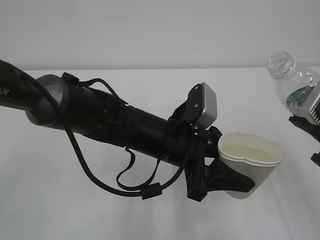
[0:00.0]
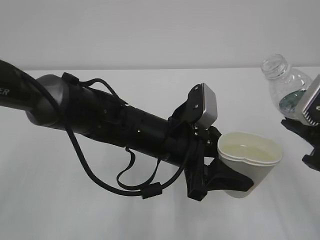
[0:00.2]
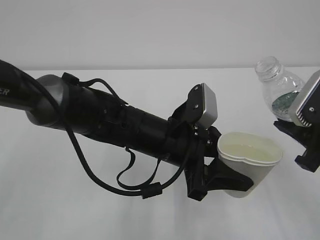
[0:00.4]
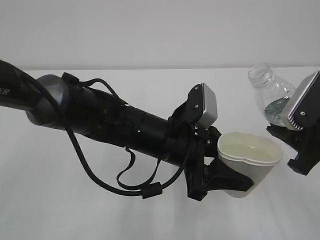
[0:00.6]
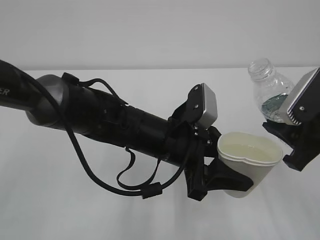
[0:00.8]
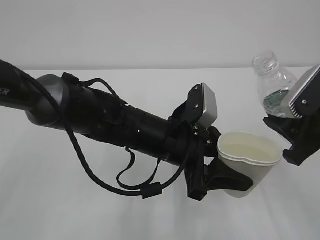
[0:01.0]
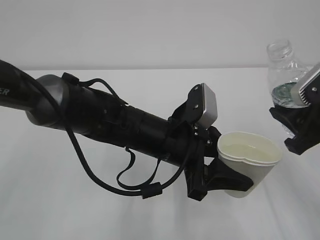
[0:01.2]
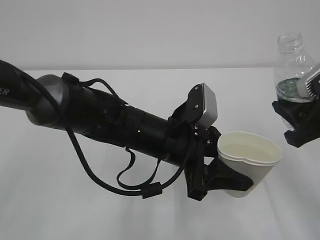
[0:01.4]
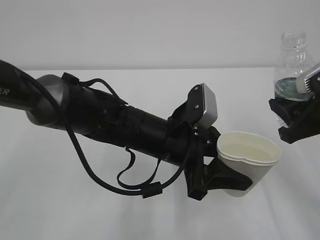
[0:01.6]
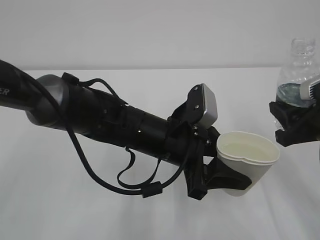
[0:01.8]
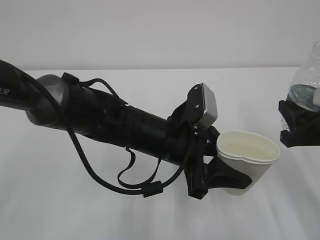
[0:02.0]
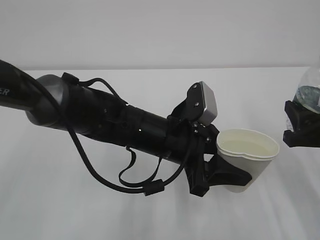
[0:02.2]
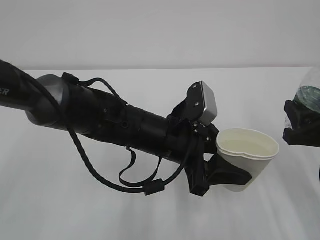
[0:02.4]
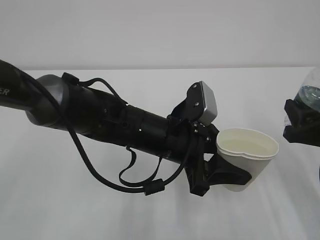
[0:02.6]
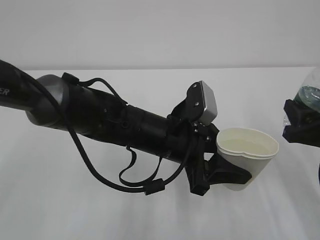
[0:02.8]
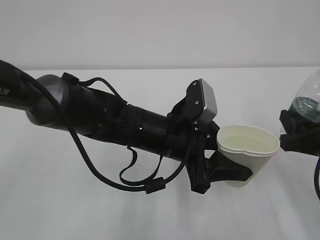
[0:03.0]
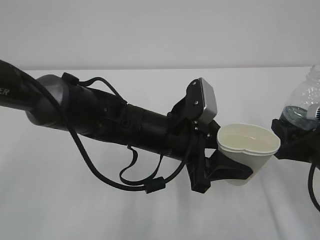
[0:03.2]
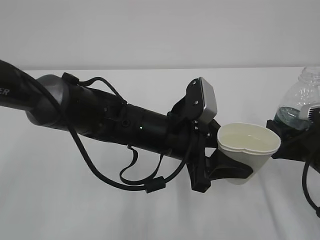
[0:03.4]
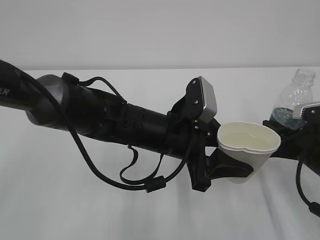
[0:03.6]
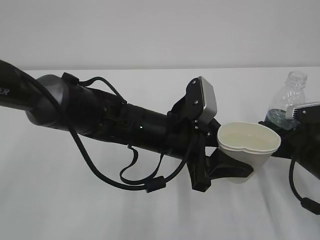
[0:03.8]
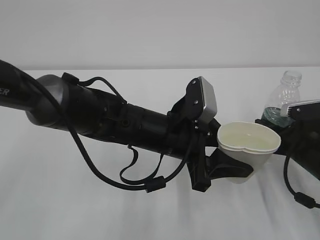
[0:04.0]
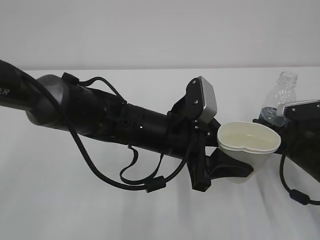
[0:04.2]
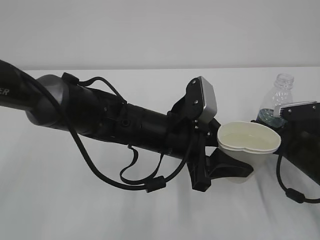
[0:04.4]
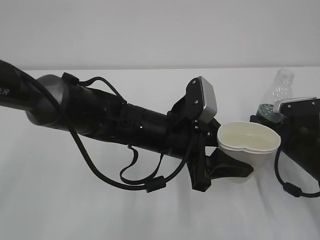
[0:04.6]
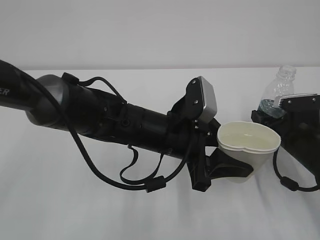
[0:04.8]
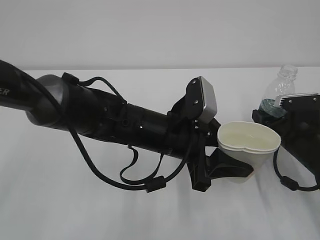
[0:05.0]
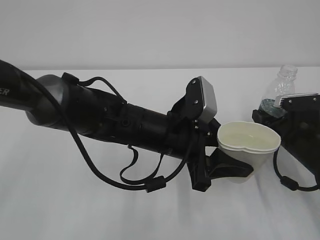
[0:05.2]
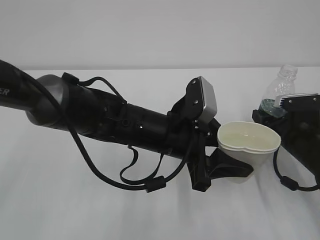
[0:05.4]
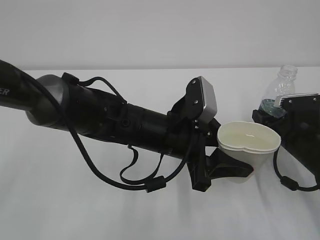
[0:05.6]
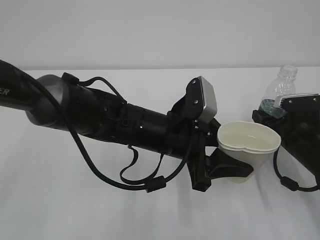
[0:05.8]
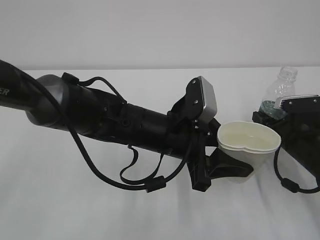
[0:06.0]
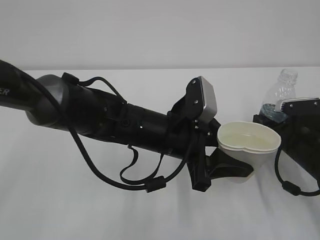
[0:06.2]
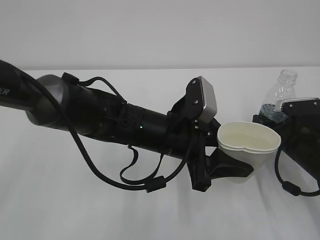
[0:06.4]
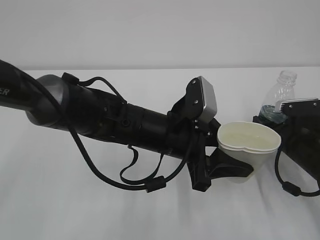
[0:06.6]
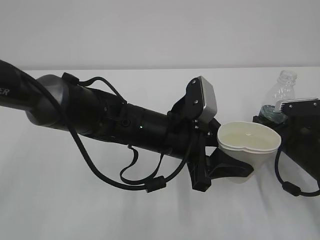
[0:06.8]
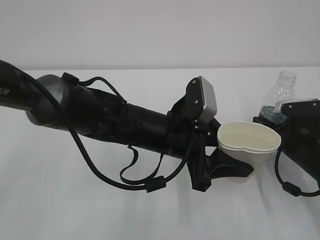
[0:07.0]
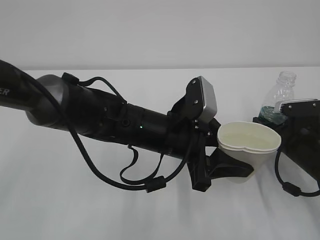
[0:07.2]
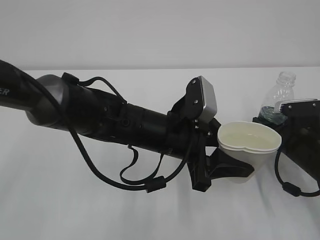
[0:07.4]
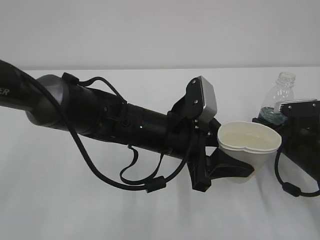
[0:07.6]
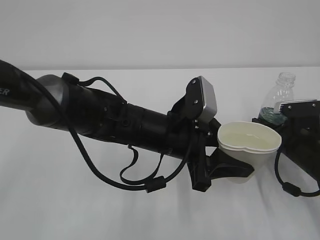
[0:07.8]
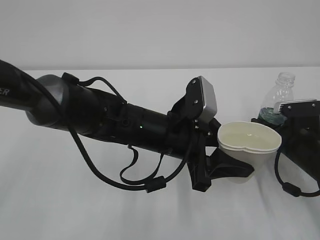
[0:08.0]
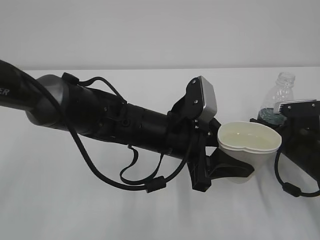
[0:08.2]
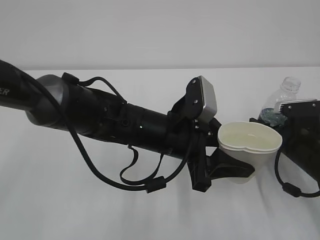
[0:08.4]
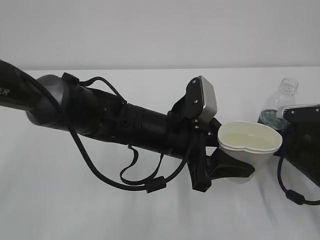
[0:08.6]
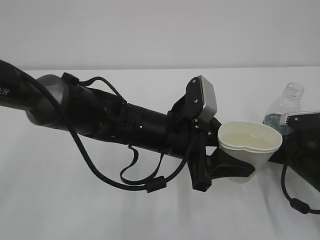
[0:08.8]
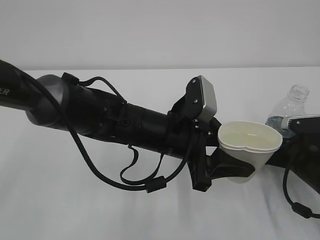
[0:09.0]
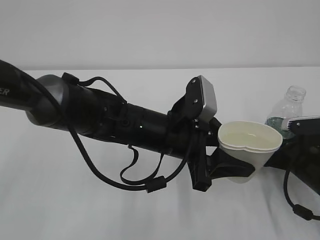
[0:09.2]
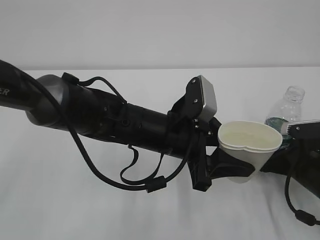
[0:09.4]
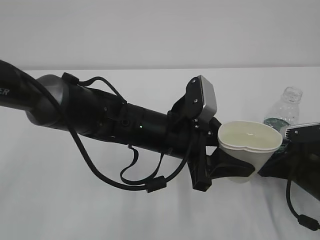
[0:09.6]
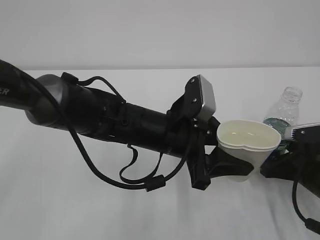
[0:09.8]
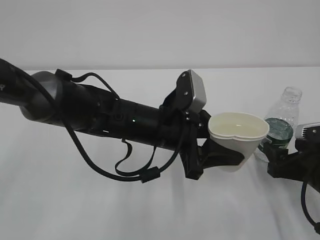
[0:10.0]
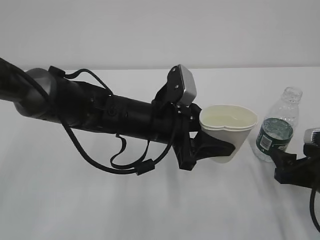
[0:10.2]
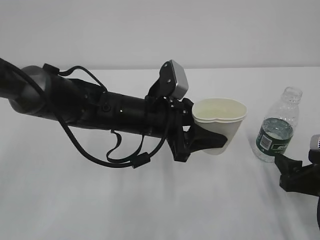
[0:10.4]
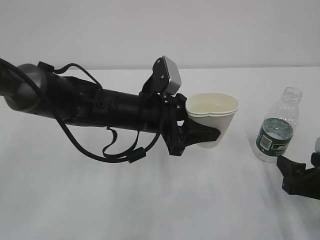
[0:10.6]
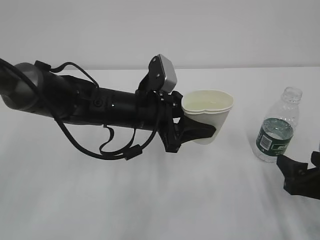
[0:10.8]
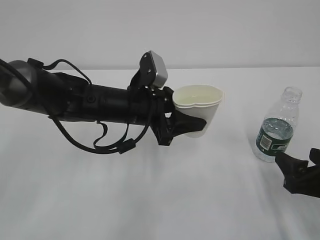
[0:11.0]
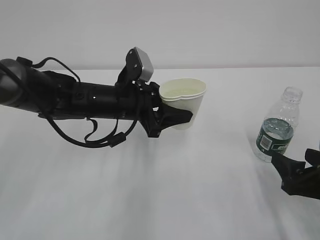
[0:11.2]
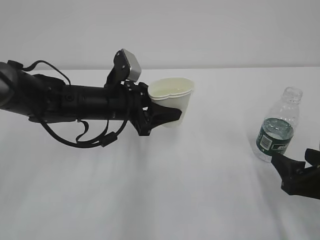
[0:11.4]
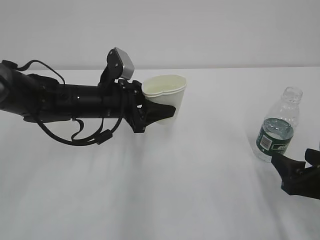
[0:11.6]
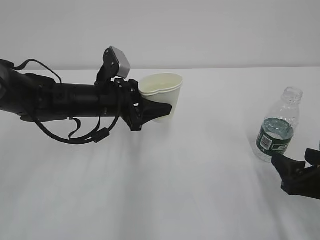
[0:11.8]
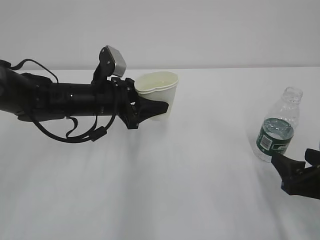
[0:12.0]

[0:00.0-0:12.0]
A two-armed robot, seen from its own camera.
0:00.0 to 0:01.6: The right gripper changes place by some 5 cm.
0:01.6 to 0:03.0: The right gripper travels downward by some 5 cm.
0:03.0 to 0:04.4: The right gripper travels downward and forward by roughly 10 cm.
0:04.4 to 0:06.0: The grippers stay close to where they were, moving slightly.
0:06.0 to 0:07.6: Both grippers stay put.
0:07.6 to 0:09.0: The right gripper opens up.
0:09.0 to 0:10.4: The right gripper is displaced backward by approximately 5 cm.
0:10.4 to 0:12.0: The left gripper heads to the left and forward, covering some 10 cm.

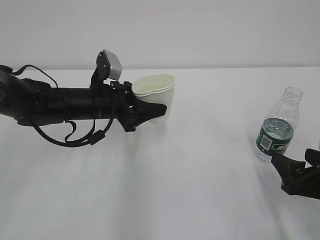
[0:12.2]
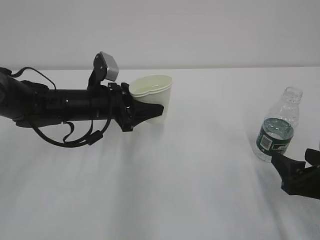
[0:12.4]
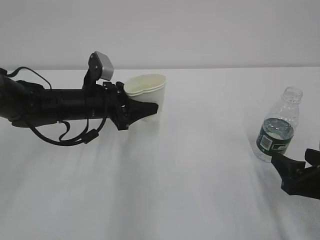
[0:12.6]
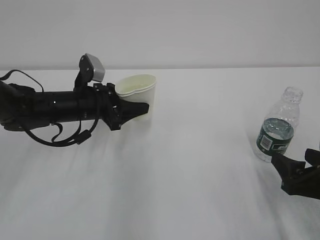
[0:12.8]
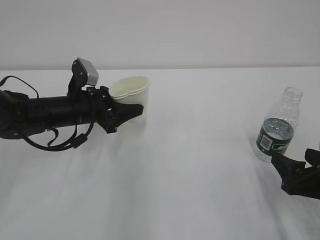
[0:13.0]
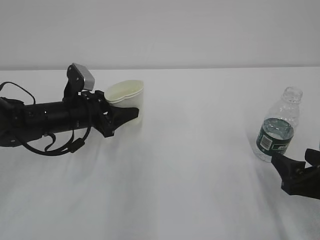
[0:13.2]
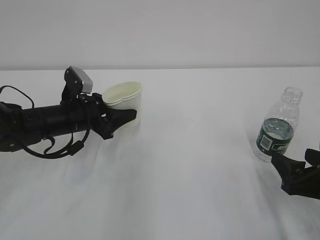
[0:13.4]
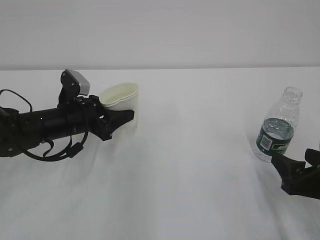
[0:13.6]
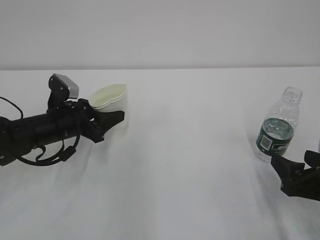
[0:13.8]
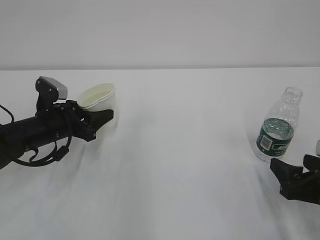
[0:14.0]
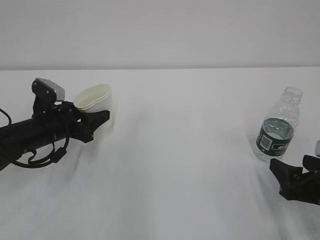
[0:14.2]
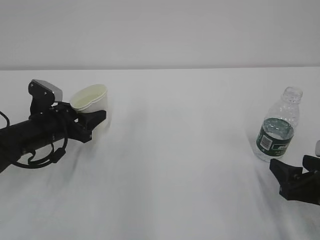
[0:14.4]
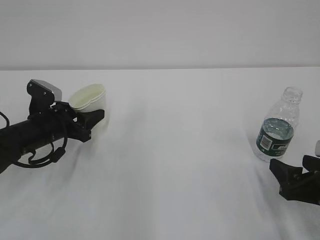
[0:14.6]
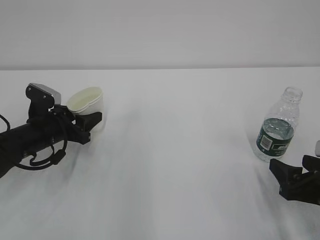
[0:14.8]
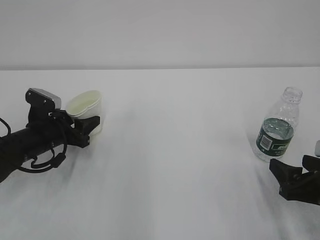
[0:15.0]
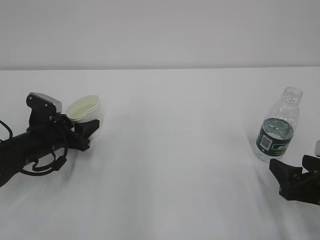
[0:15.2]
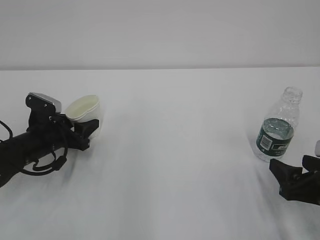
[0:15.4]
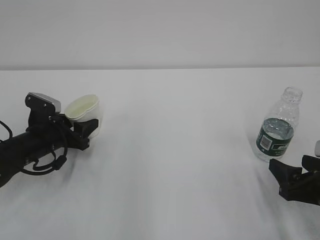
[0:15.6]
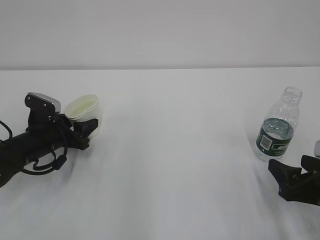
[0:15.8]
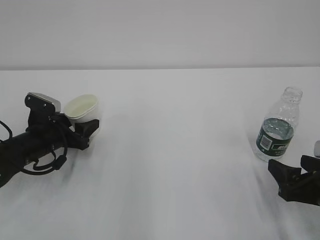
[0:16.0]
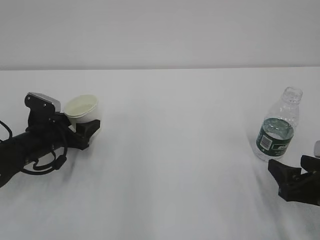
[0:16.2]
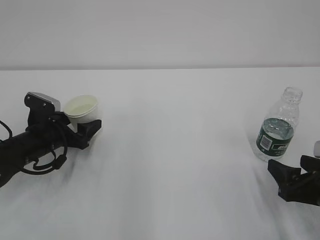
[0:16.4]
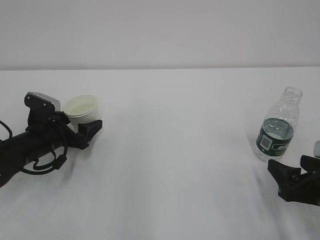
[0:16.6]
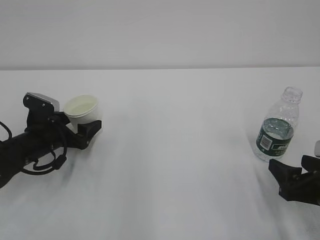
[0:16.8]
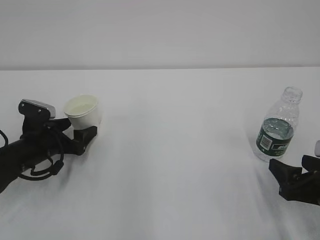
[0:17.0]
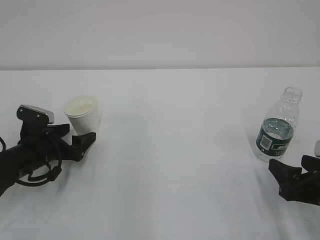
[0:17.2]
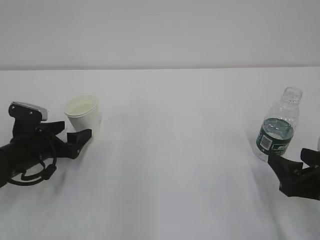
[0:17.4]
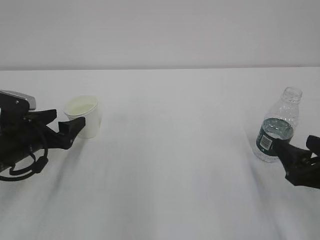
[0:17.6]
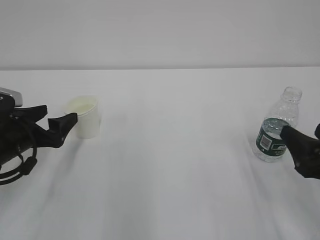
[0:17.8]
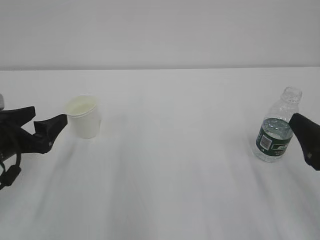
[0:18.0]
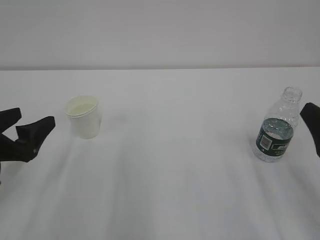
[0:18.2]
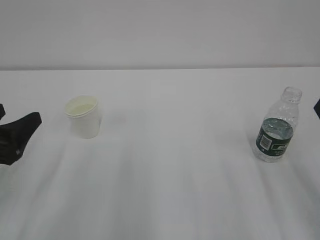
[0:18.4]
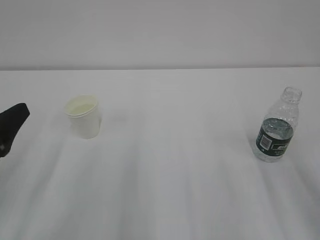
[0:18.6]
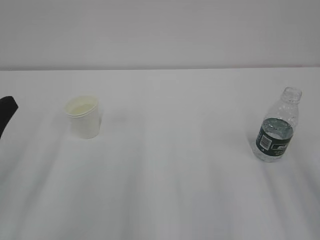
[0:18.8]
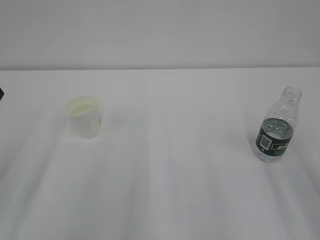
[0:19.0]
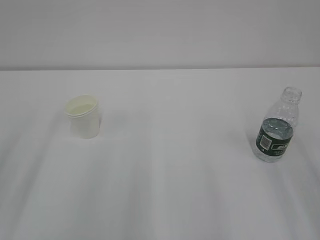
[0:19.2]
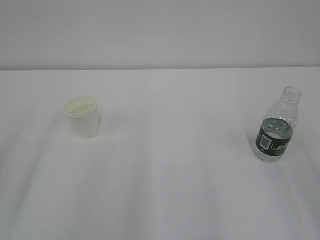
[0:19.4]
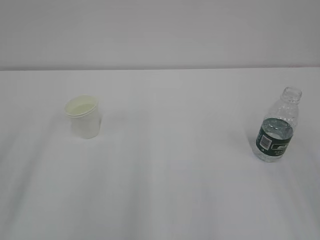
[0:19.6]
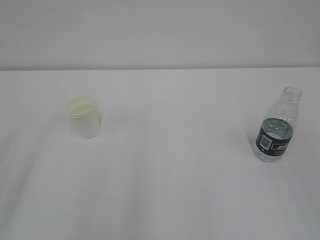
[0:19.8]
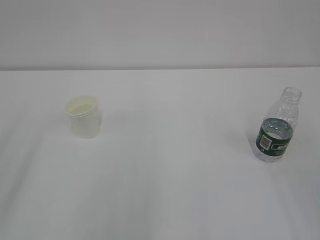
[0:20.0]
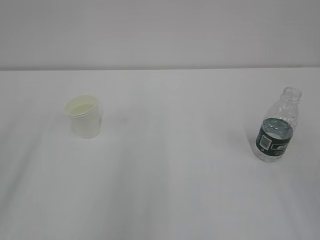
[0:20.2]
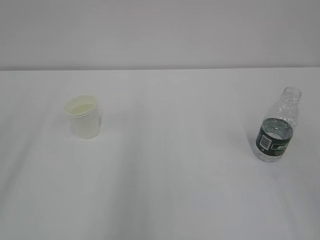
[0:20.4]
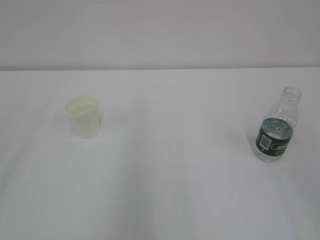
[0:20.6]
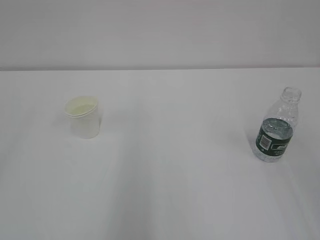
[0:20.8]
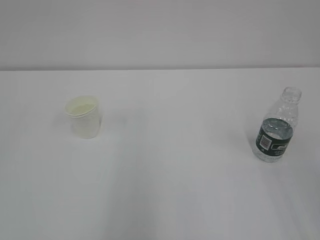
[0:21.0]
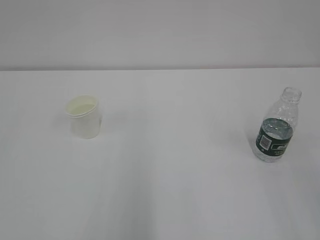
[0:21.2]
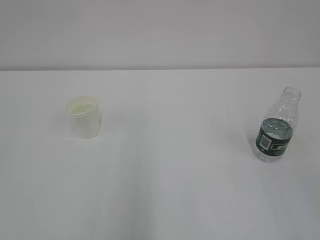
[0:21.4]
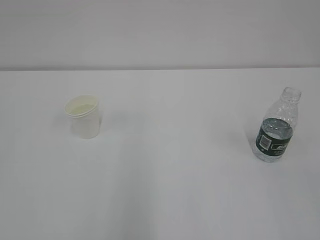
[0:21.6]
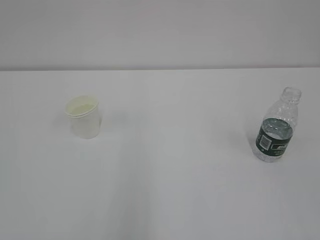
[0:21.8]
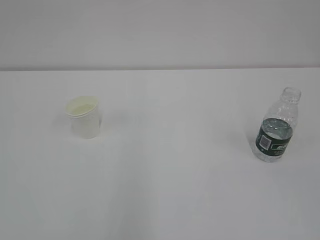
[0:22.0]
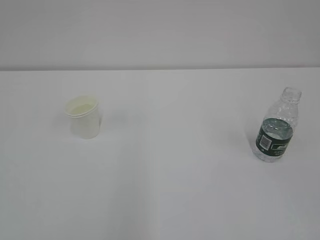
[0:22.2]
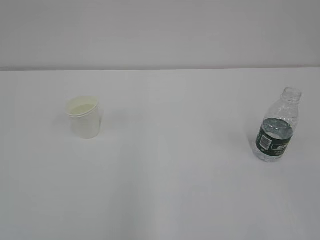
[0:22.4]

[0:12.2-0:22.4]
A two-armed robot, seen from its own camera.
0:12.2 to 0:13.6: The left gripper travels to the left by approximately 5 cm.
0:13.6 to 0:15.2: The left gripper moves to the left, some 5 cm.
0:15.2 to 0:16.6: The left gripper opens its fingers.
0:16.6 to 0:18.0: The right gripper shifts approximately 5 cm upward. The left gripper heads backward and upward, covering roughly 10 cm.
0:18.0 to 0:19.4: The right gripper moves upward and backward, about 15 cm, while the left gripper travels backward and upward by some 15 cm.
